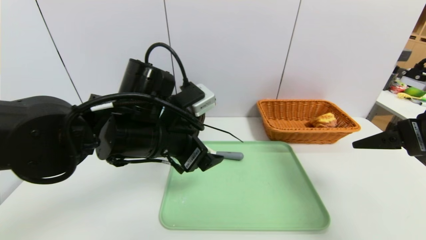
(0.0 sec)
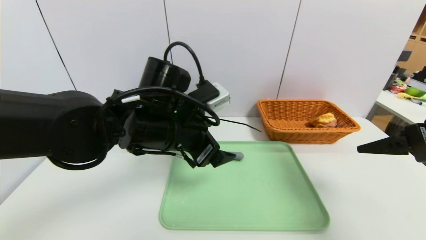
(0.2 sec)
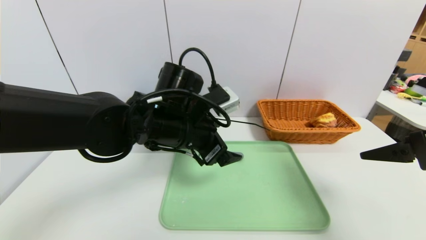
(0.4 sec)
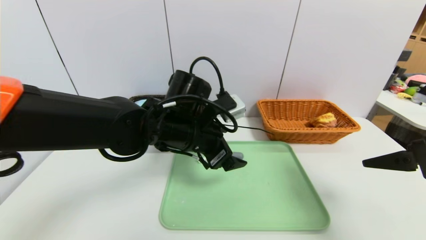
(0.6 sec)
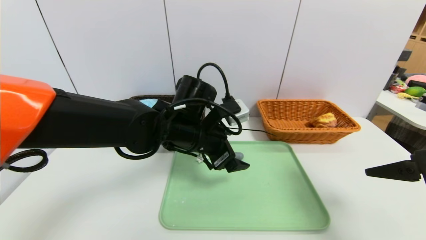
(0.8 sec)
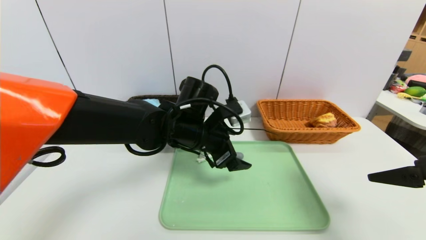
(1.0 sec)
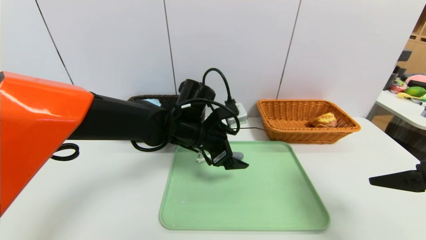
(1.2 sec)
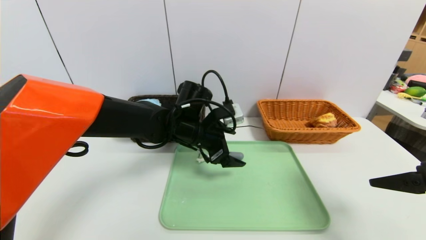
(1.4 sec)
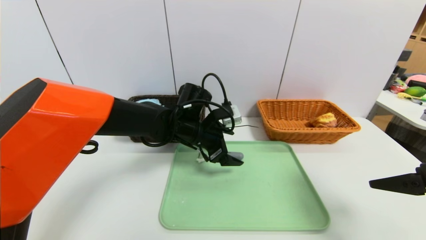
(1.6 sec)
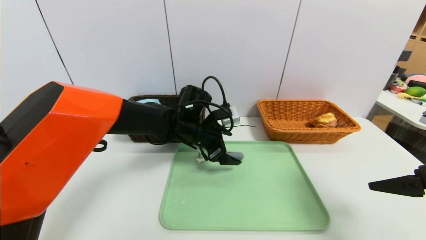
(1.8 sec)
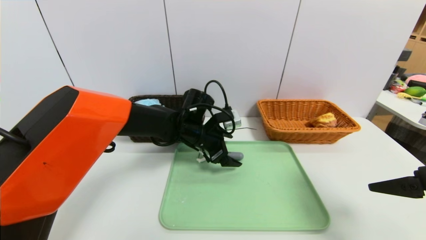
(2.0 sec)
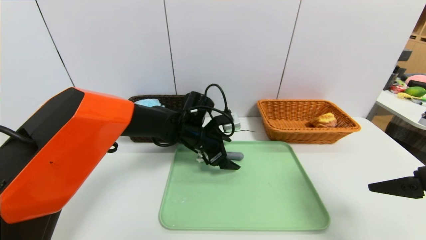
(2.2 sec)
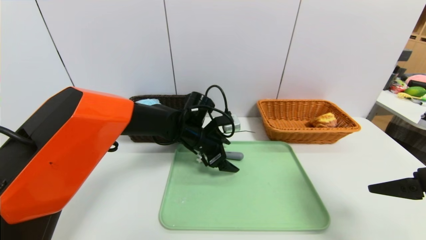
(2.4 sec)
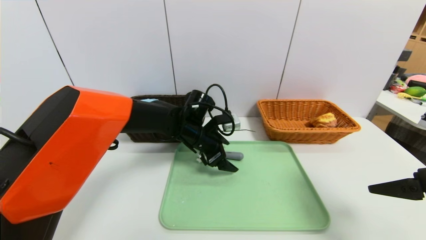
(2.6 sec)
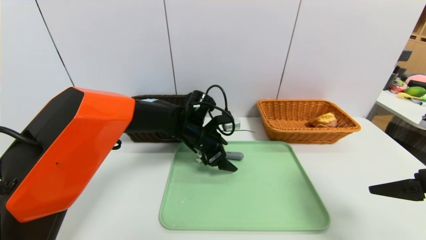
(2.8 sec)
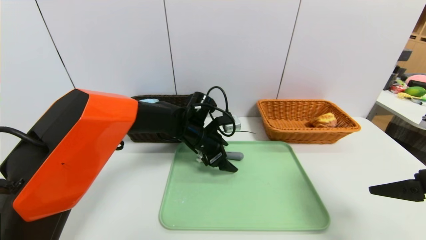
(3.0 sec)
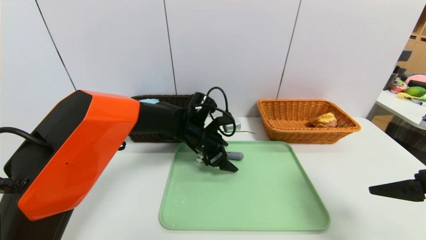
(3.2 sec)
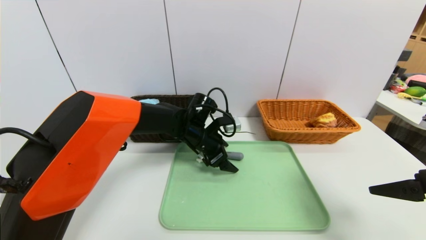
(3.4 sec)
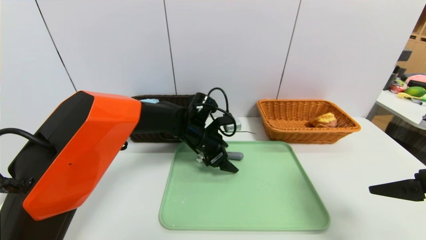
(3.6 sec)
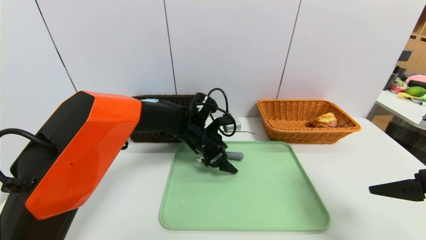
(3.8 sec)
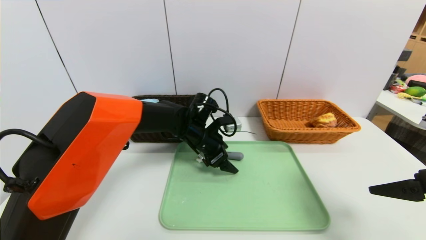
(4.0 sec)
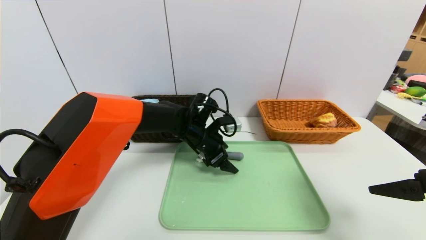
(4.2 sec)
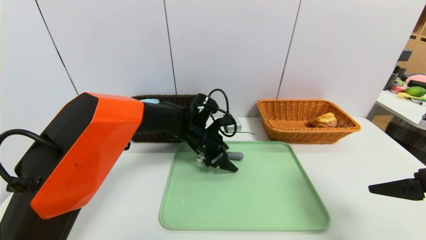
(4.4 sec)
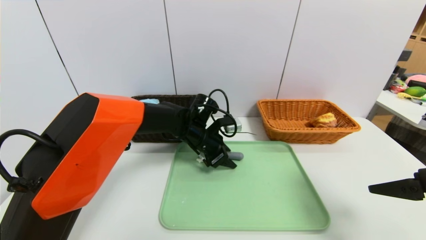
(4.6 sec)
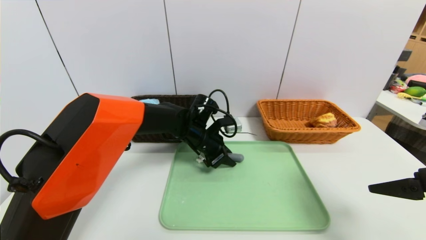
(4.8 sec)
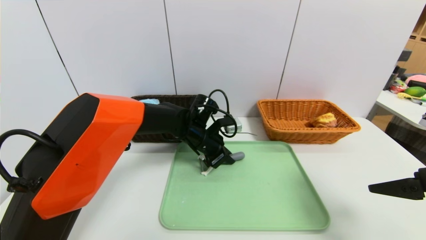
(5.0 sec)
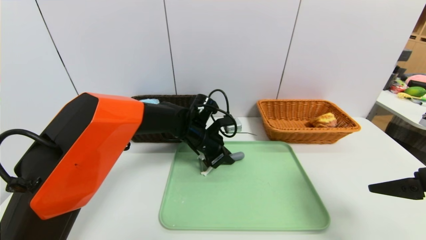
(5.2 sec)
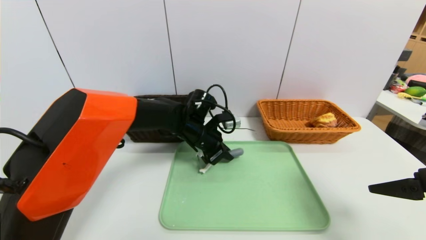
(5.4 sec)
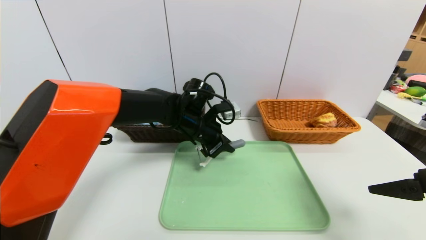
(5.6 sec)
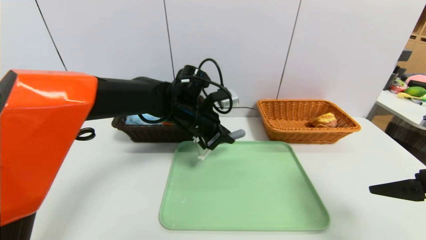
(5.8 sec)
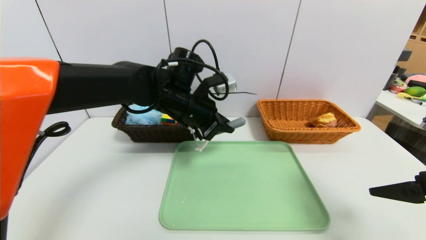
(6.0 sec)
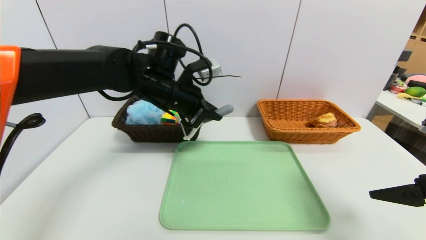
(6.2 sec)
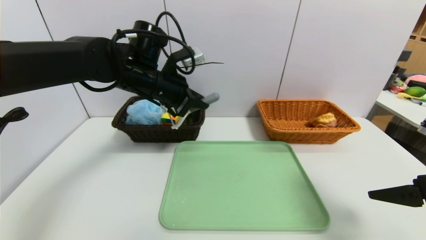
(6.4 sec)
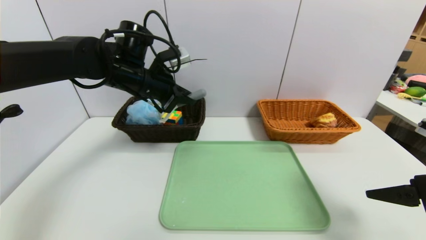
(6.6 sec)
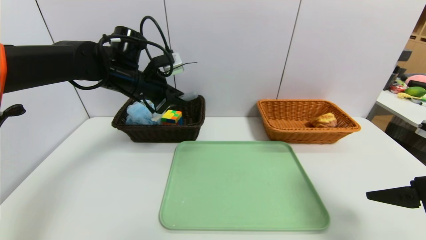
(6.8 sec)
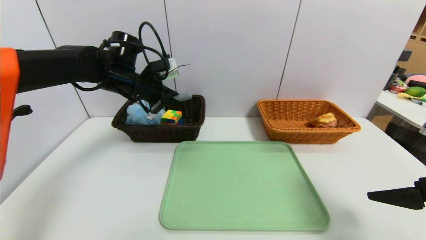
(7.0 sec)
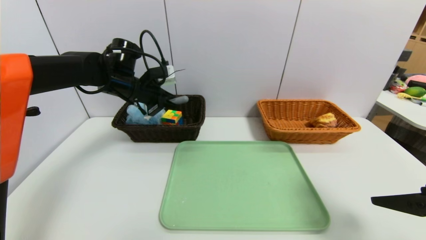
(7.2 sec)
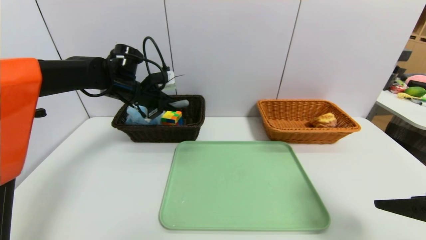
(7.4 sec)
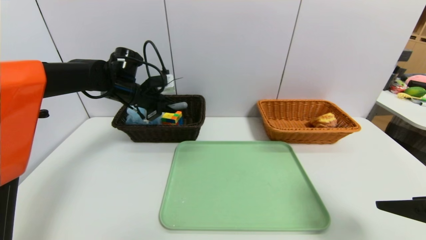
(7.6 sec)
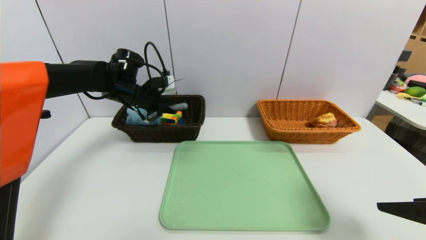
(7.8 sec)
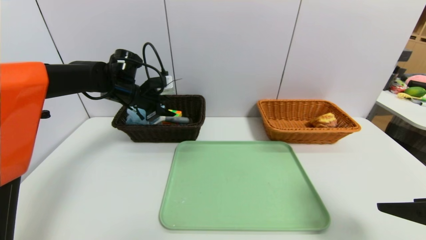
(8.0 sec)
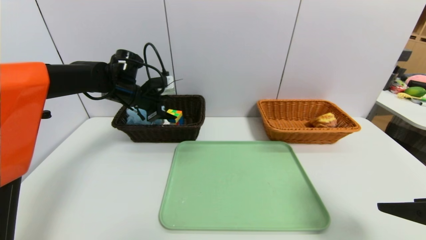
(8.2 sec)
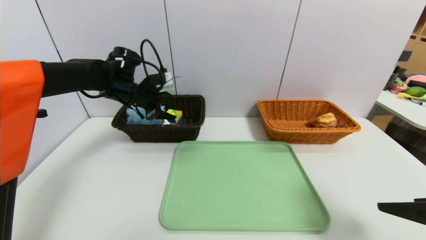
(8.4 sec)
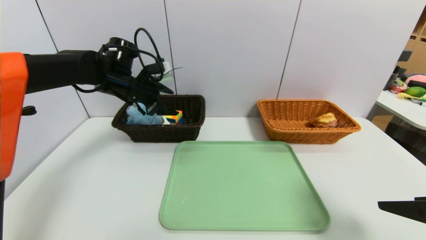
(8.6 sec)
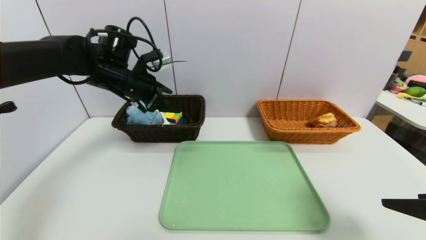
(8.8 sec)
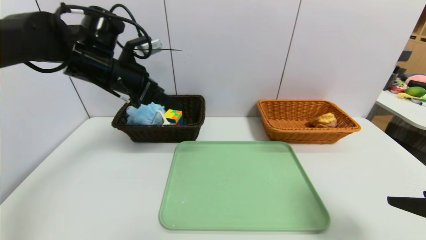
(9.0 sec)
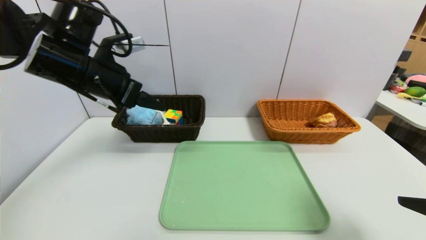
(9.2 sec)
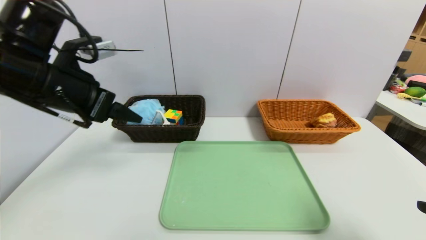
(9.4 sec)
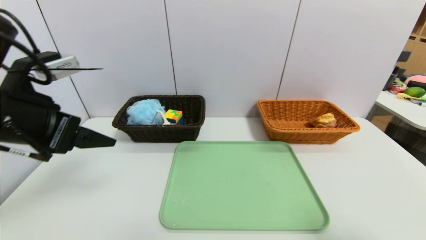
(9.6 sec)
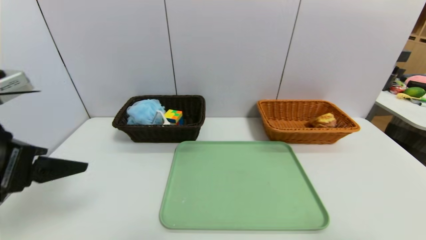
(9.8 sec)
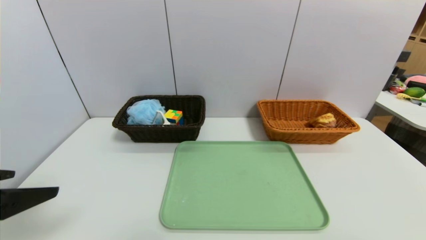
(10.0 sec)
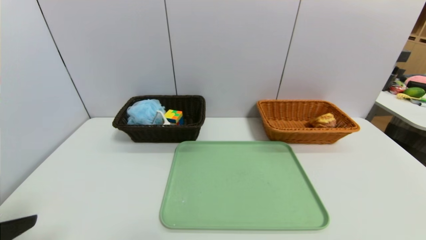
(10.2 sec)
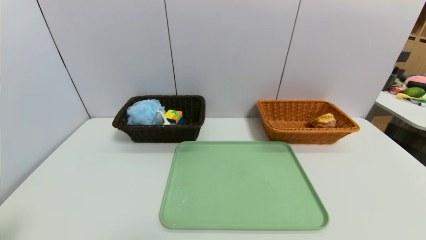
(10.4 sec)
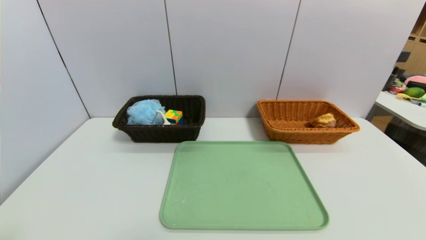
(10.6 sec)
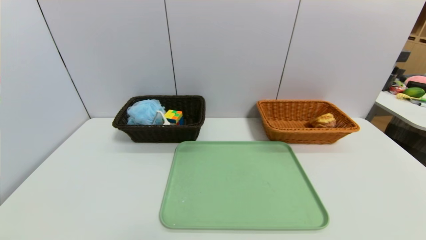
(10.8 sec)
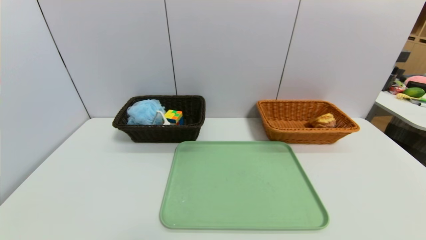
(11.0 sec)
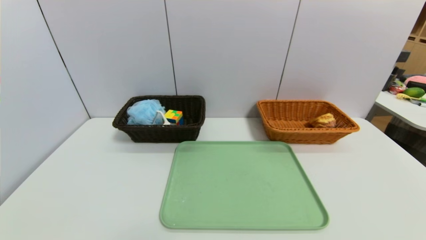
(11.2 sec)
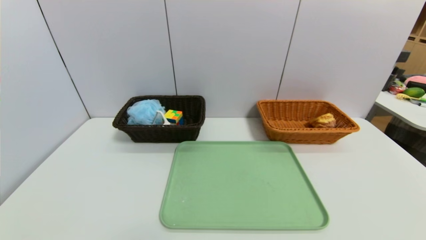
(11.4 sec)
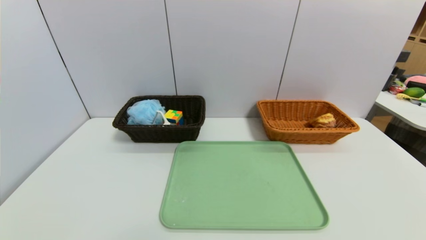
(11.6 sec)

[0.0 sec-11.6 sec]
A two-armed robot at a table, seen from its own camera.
Task of the whole recording: place the food in the right basket with the right gripper, and place the non food items in the left basket with the left gripper.
Step, 0.0 sec to 9.6 sec: Grasp the peeler and put it in the left basket.
0.0 sec to 1.4 sec: The left gripper is displaced forward and downward by some 10 cm. Meanwhile the right gripper shifts by some 5 cm.
1.4 sec to 2.8 sec: The grippers move only a little.
2.8 sec to 4.4 sec: Neither gripper changes place.
4.4 sec to 5.8 sec: The left gripper goes some 10 cm upward, and closes up.
5.8 sec to 7.2 sec: The left gripper heads to the left and forward, covering about 15 cm.
7.2 sec to 8.8 sec: The left gripper shifts by roughly 5 cm, and opens.
8.8 sec to 10.2 sec: The left gripper heads backward, covering approximately 35 cm; the right gripper moves backward, some 15 cm.
10.2 sec to 11.6 sec: The left gripper travels downward and backward by some 15 cm.
